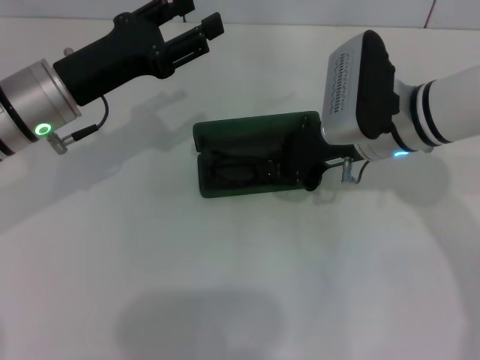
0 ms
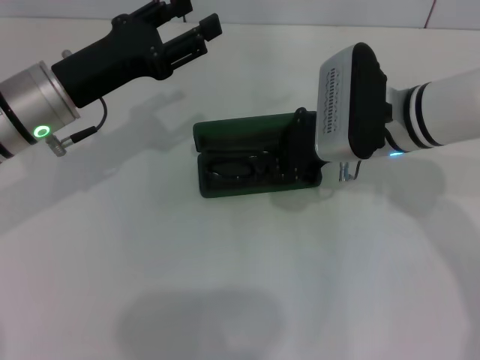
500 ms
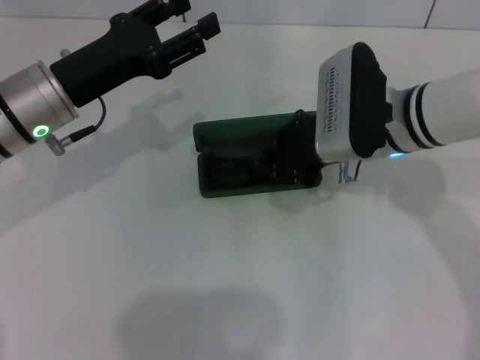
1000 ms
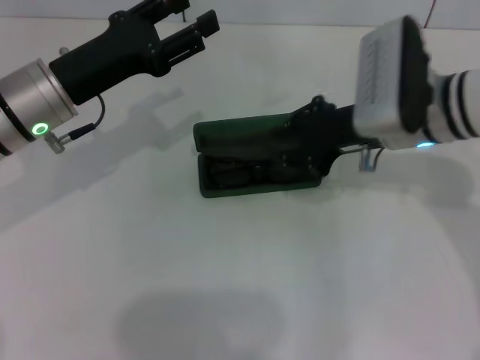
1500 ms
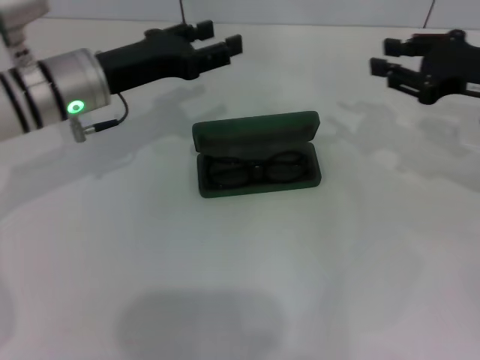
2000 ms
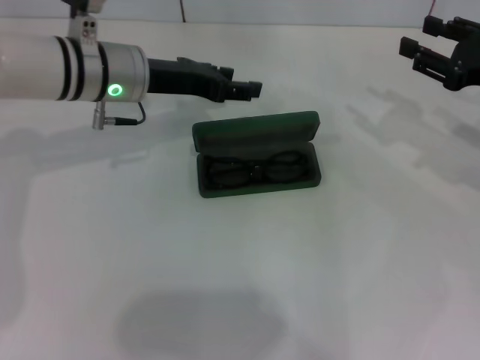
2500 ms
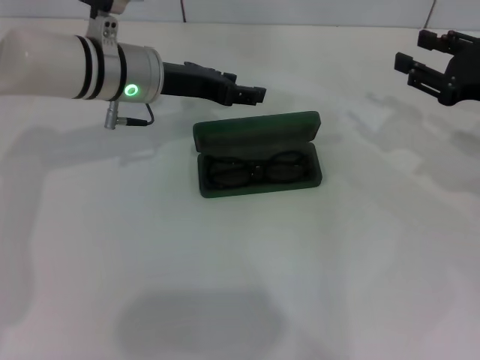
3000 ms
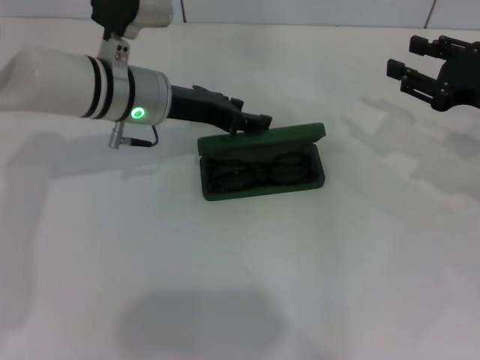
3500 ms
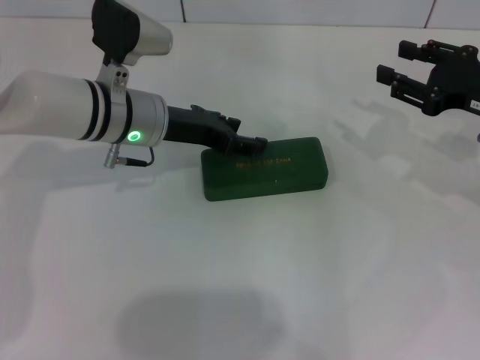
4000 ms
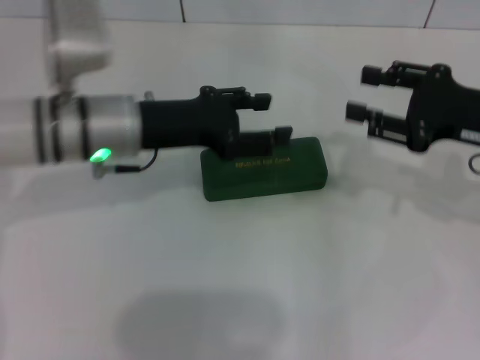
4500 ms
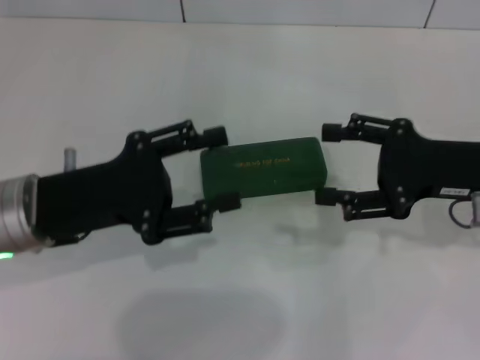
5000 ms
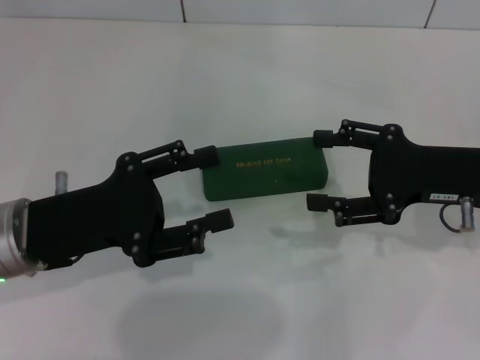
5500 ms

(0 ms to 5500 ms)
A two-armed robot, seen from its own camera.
Step, 1500 ms - 4000 ms: Close the glasses case with your left hand.
0 ms - 2000 ms: The right gripper moves to the right, roughly 15 cm, and opens.
2000 ms - 3500 ms: The left gripper moves to the right, about 5 cm.
3500 ms - 5500 ms: The left gripper heads backward and to the left, covering about 20 cm. Meanwhile the right gripper goes roughly 5 cm to the left and backward, and opens.
